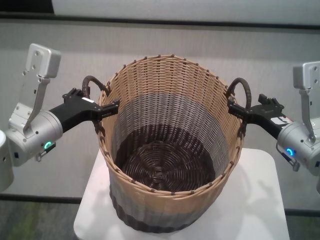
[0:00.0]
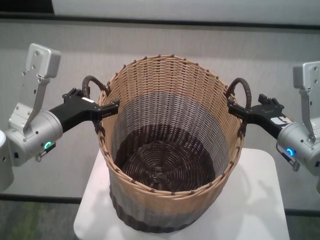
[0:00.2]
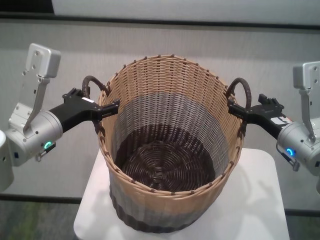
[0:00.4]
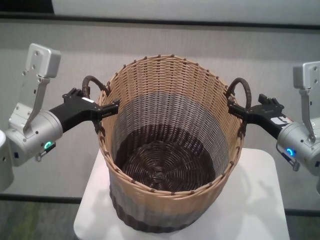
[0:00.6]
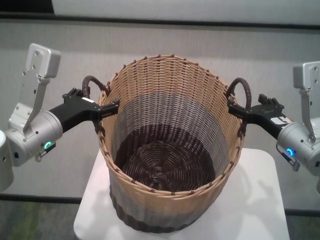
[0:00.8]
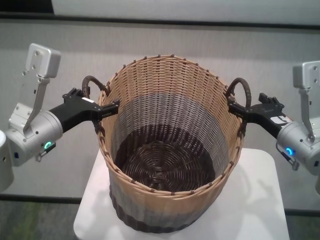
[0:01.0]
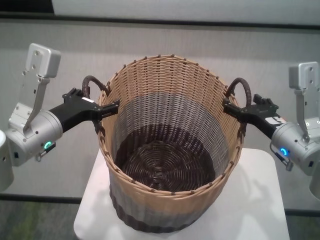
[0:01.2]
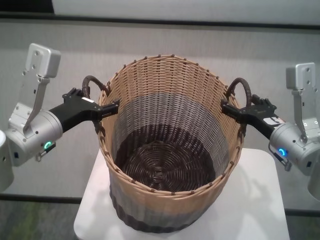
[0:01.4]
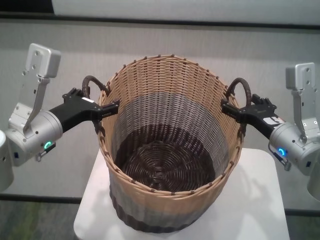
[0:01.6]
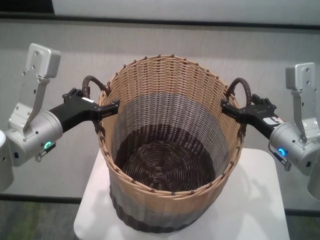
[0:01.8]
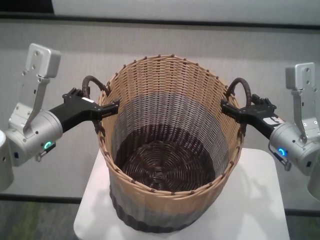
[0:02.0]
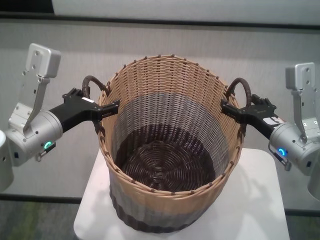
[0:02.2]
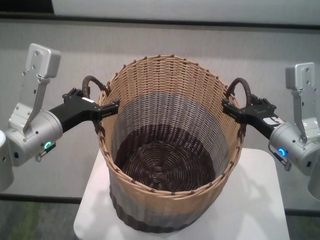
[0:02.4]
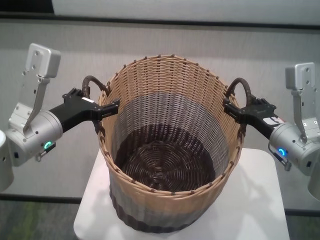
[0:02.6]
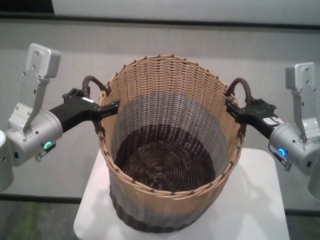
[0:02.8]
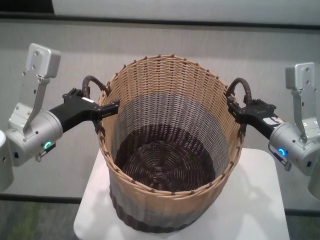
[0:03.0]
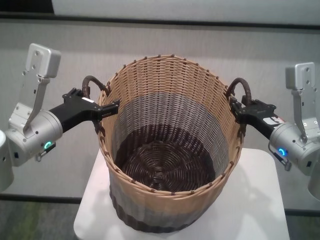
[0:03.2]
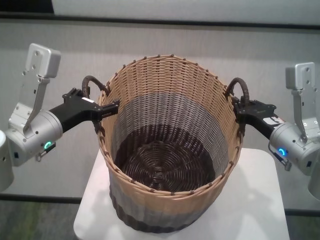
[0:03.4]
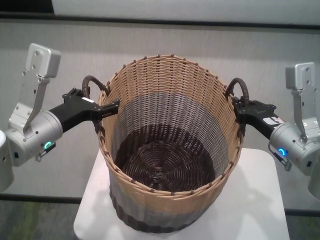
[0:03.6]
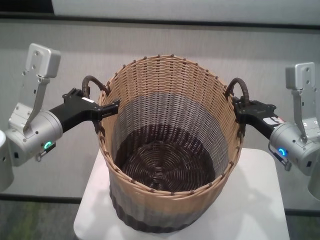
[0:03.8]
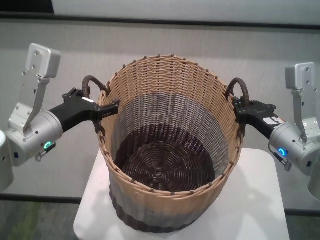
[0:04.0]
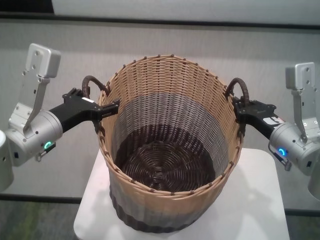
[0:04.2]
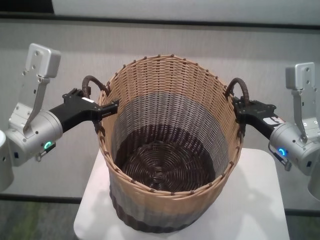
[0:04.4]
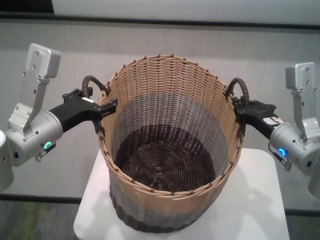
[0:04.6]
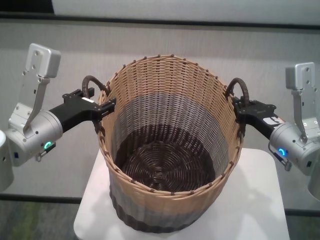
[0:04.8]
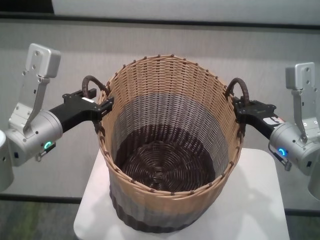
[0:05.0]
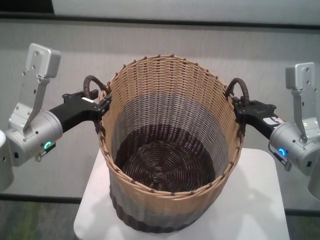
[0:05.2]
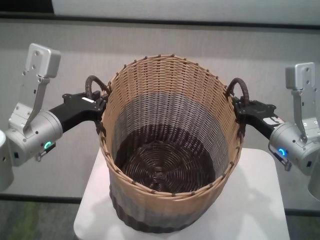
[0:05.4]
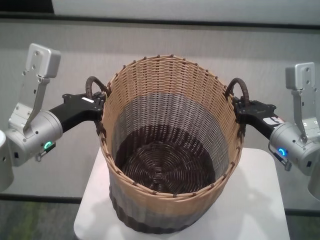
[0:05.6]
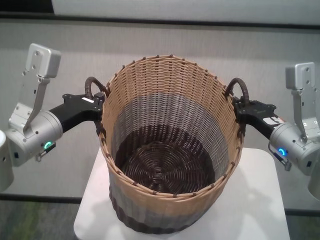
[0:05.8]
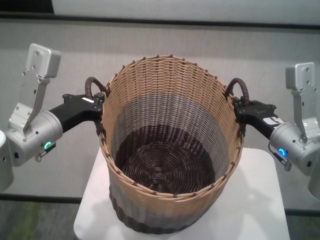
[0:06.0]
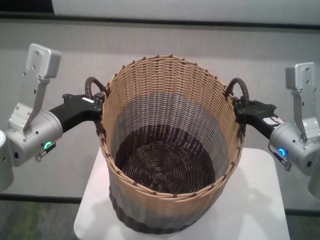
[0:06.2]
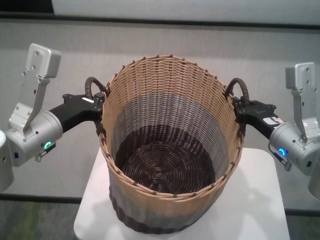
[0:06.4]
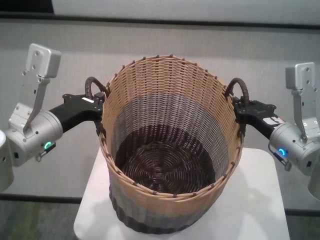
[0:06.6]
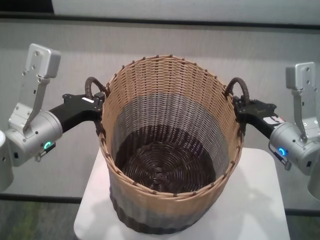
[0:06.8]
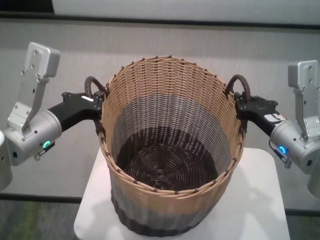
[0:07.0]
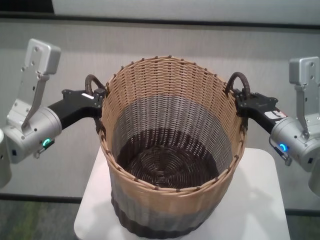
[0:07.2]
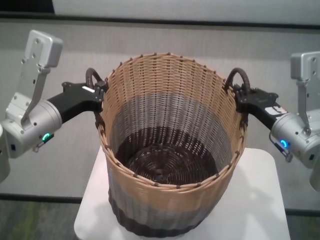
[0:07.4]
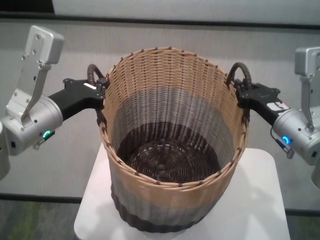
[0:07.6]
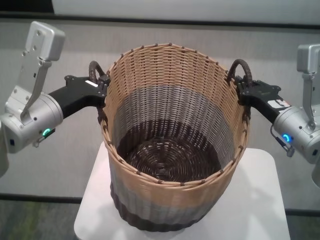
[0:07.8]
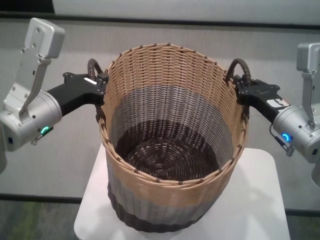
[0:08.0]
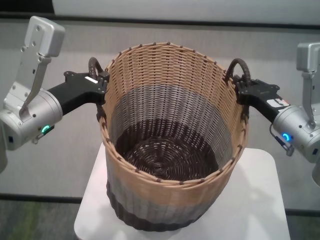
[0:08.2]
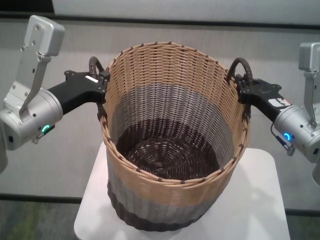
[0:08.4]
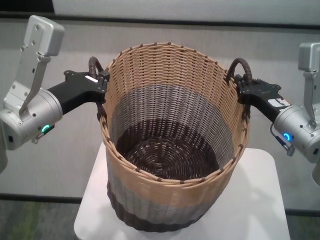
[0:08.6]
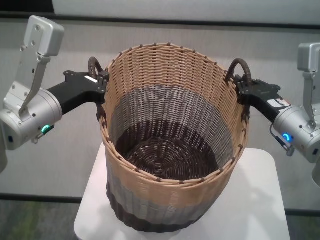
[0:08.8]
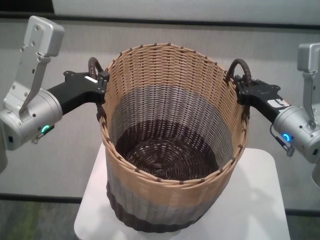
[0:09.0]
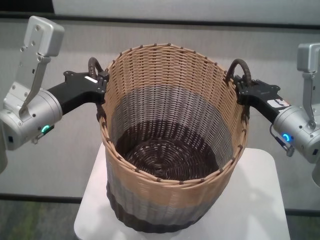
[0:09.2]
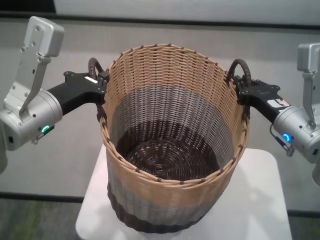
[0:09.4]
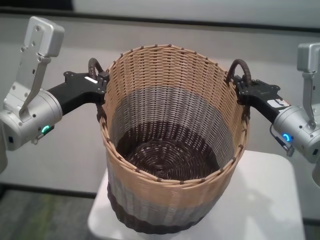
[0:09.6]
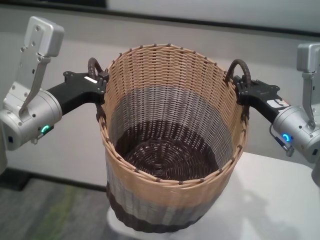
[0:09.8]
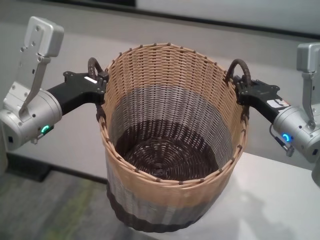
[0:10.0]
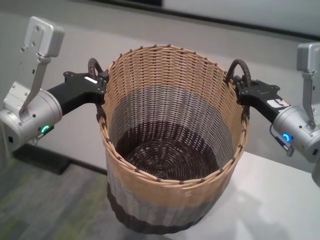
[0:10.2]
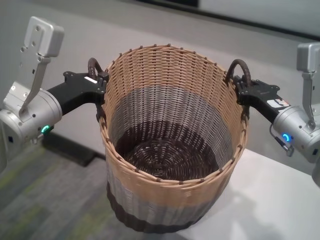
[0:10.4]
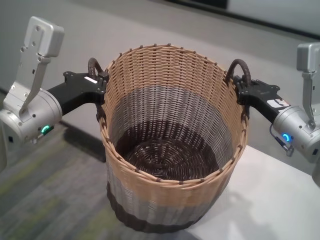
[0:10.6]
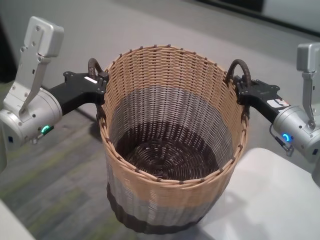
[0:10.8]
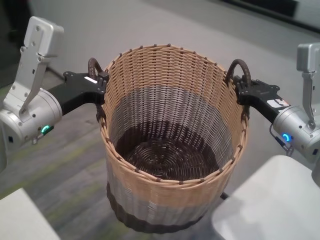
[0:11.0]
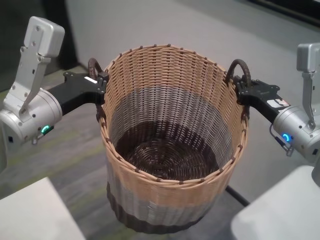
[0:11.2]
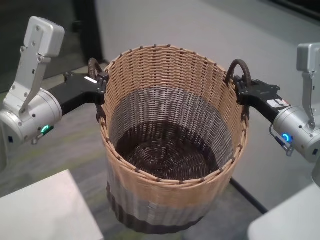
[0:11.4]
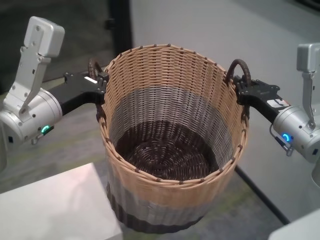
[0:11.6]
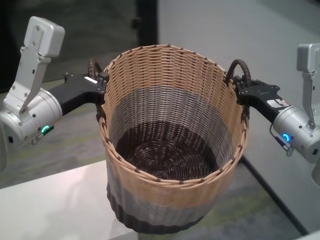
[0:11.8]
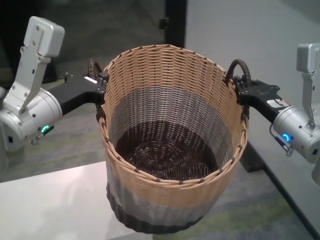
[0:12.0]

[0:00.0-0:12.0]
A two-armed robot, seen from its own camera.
Task of the whole recording: carry the clothes basket in coordination with both hands.
Step, 0:00.0 to 0:03.8: Grasp the basket with right gripper.
Step, 0:04.0 to 0:06.4: Grasp the basket with left gripper.

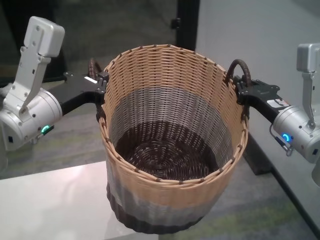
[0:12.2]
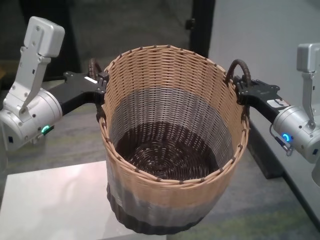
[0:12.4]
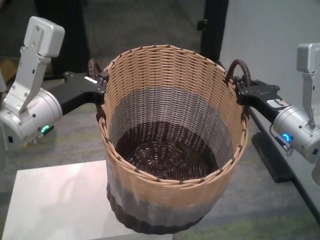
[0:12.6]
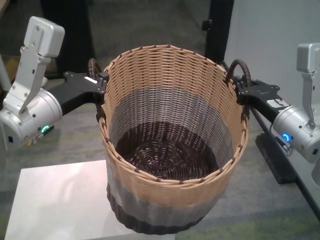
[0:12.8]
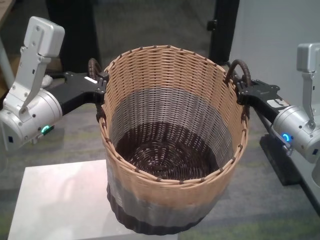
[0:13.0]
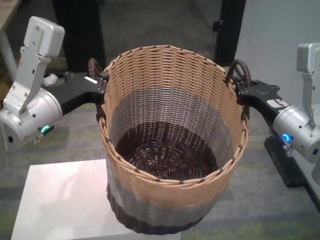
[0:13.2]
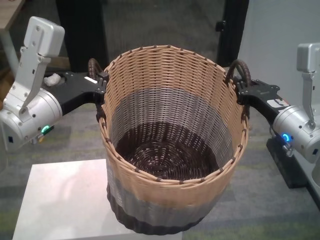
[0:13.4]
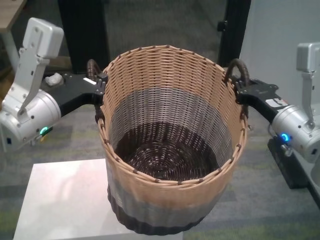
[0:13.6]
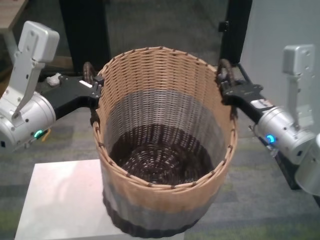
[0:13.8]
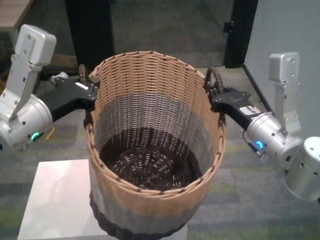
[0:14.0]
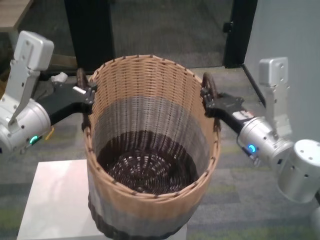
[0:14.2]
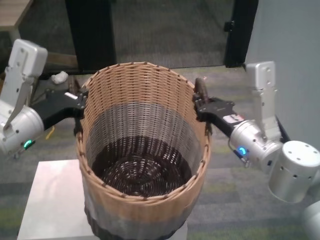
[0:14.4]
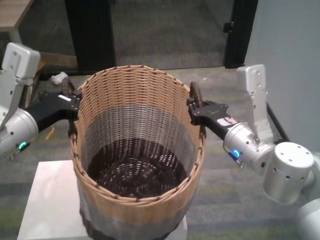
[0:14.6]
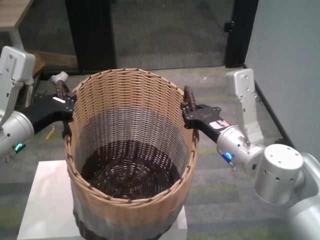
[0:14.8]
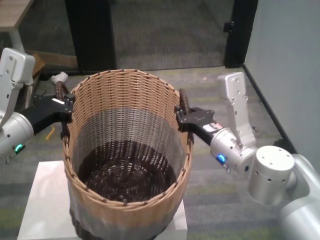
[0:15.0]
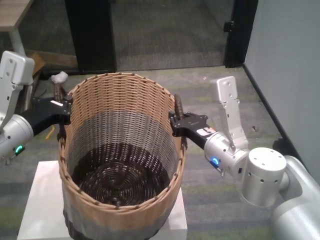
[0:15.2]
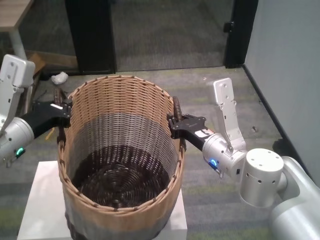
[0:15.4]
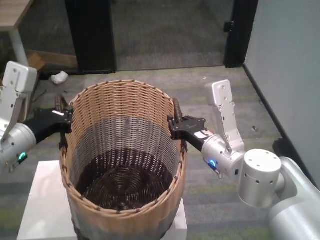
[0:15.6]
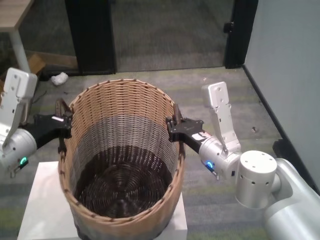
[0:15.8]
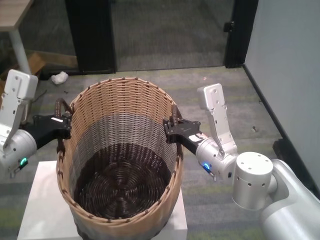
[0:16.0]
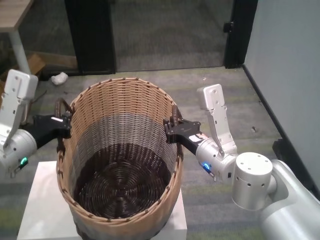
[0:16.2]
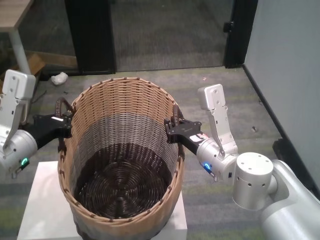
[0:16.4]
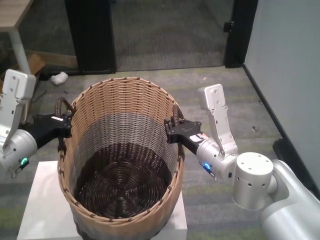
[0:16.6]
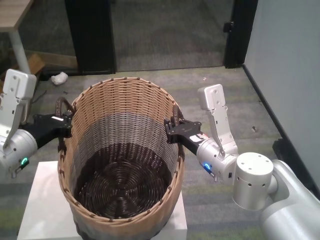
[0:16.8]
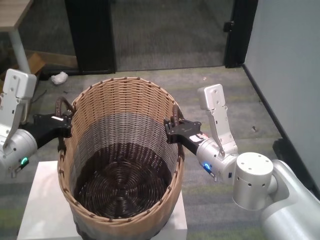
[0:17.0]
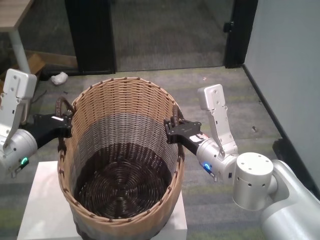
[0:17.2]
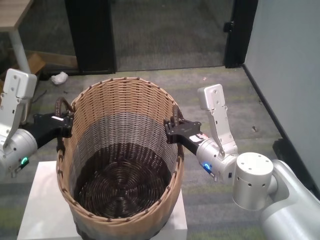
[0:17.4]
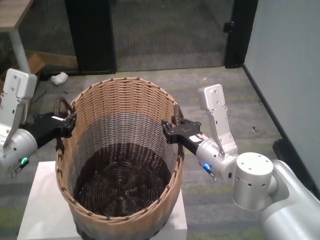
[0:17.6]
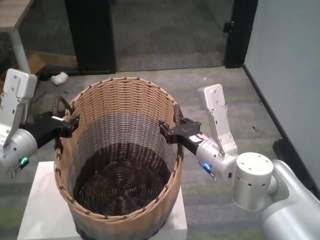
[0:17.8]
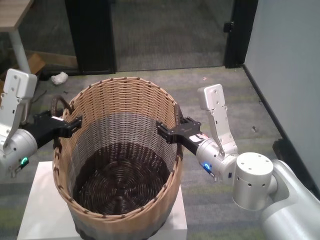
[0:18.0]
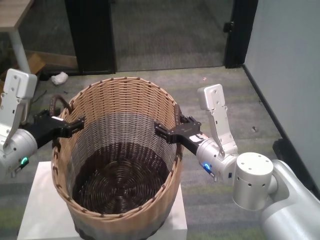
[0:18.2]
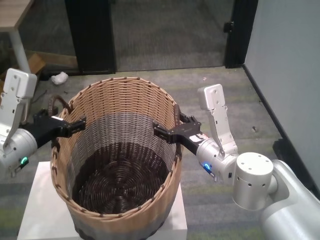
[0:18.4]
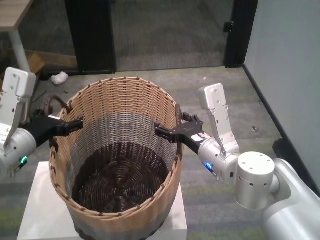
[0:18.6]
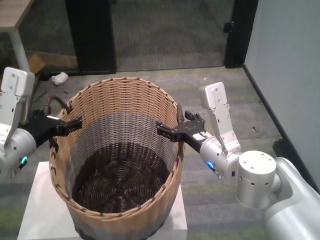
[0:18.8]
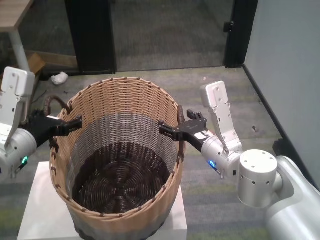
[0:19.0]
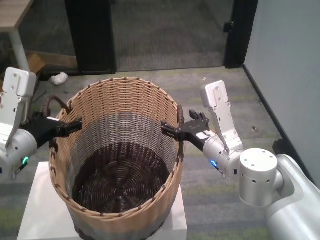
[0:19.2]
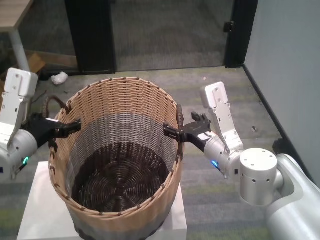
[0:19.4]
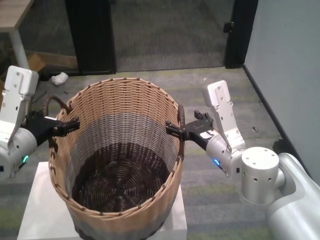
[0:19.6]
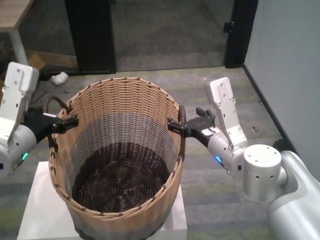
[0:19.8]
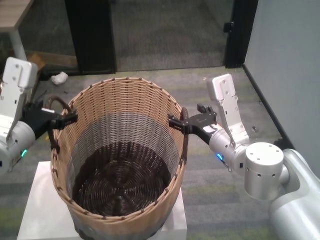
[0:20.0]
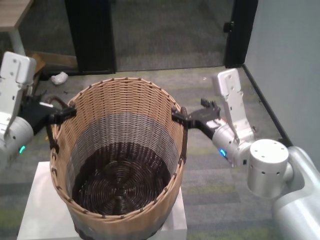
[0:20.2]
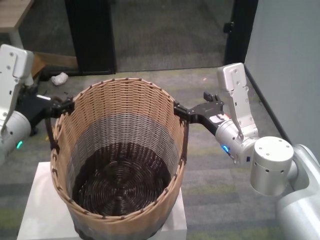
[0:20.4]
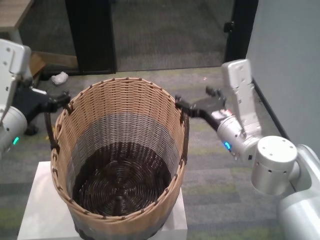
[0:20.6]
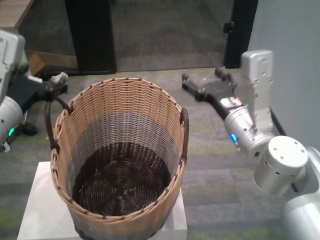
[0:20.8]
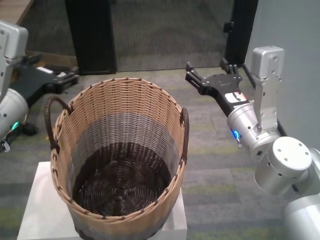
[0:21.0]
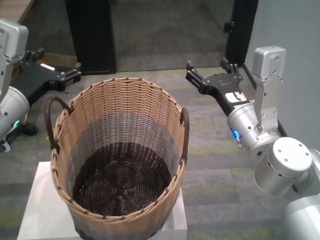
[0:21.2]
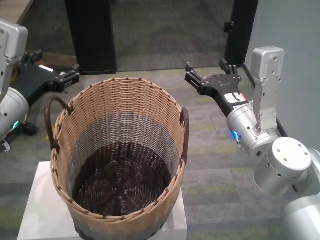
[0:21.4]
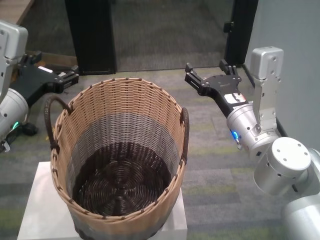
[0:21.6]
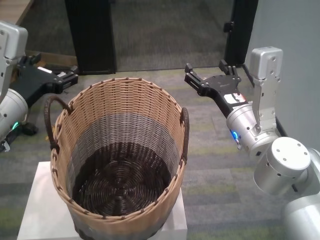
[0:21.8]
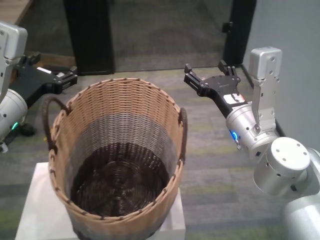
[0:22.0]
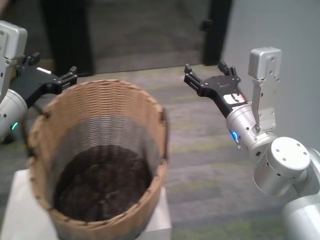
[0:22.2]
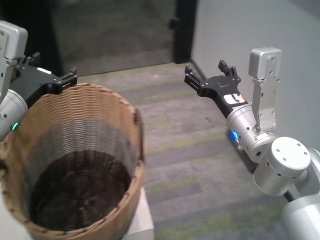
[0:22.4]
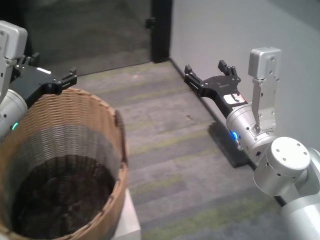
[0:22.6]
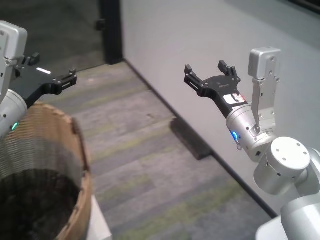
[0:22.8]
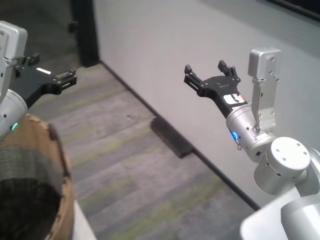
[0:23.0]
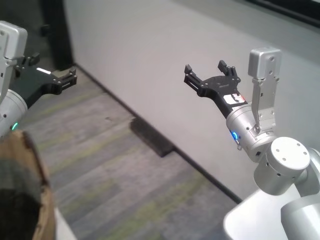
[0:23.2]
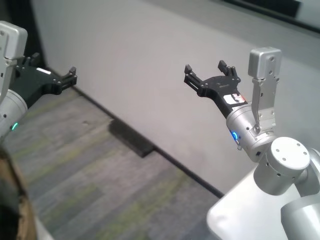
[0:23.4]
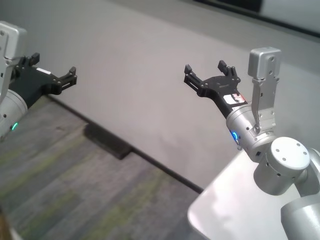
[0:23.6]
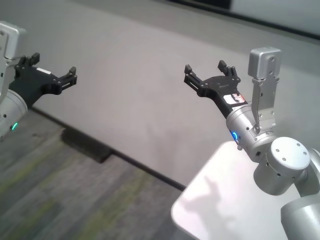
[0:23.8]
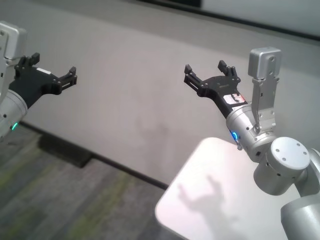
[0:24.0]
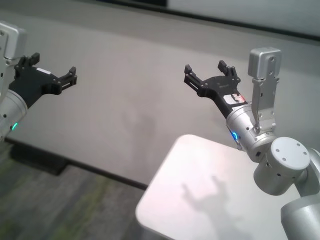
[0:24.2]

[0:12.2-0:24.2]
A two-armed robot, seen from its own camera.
Task of the whole recording: carry the clothes basket in coordination with both hands.
Step, 0:14.2 to 0:20.2: Place the basket on the table with both grippers.
